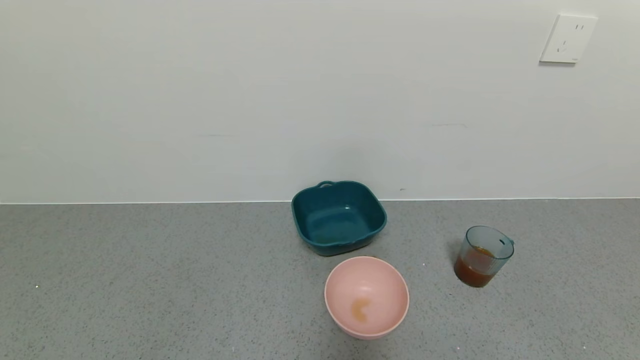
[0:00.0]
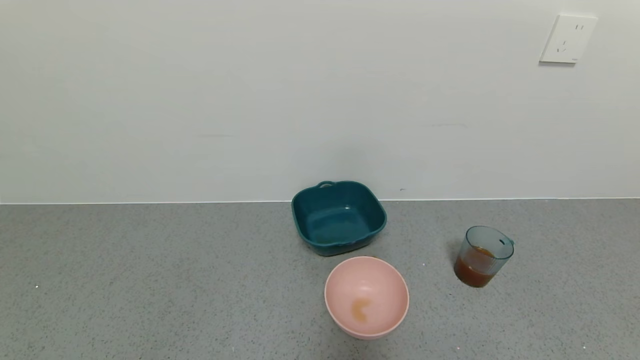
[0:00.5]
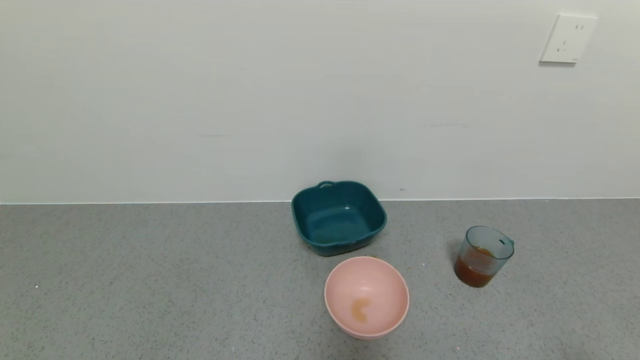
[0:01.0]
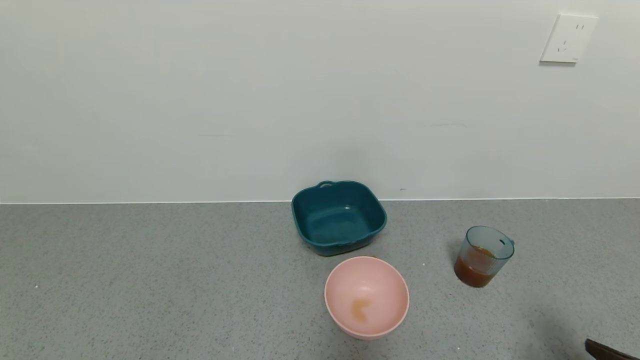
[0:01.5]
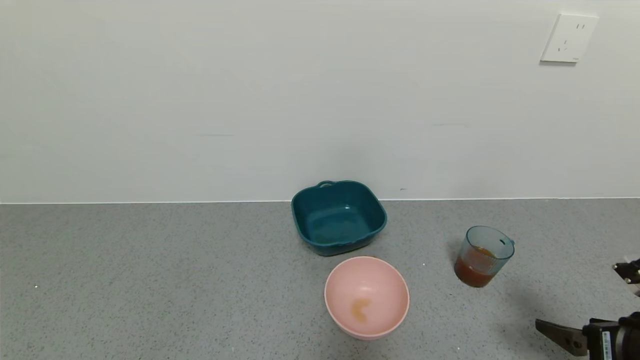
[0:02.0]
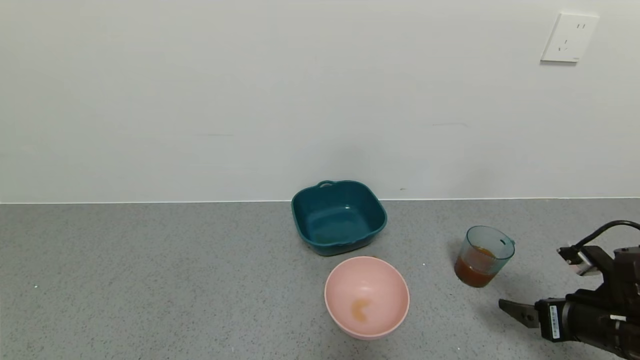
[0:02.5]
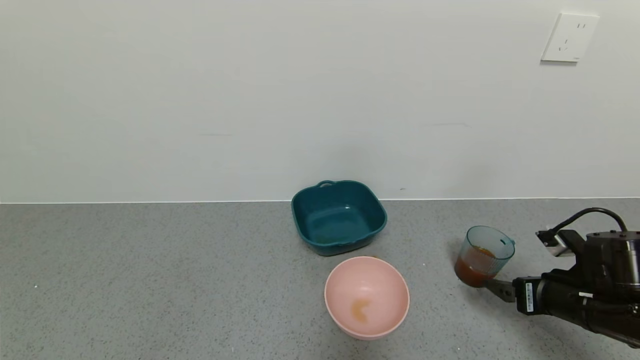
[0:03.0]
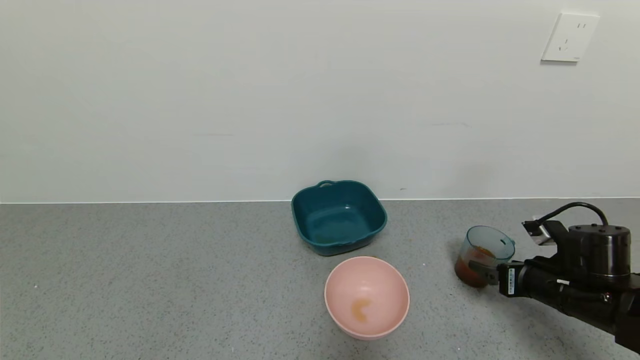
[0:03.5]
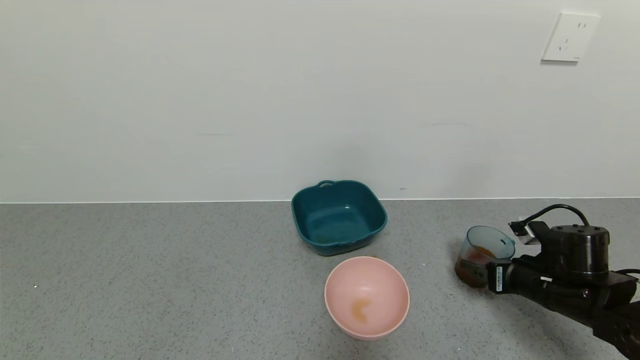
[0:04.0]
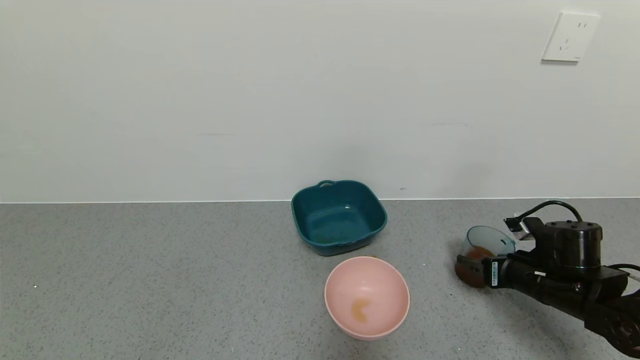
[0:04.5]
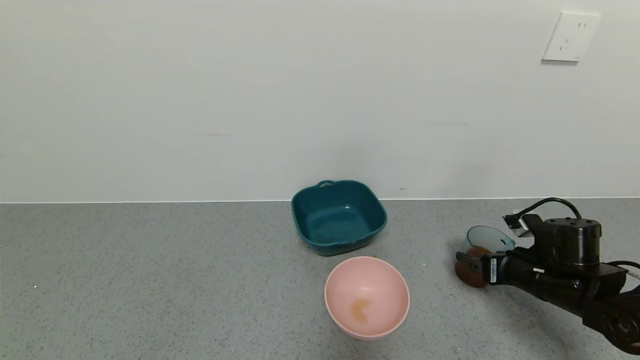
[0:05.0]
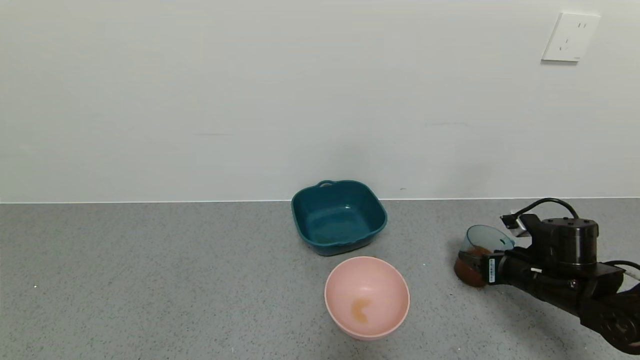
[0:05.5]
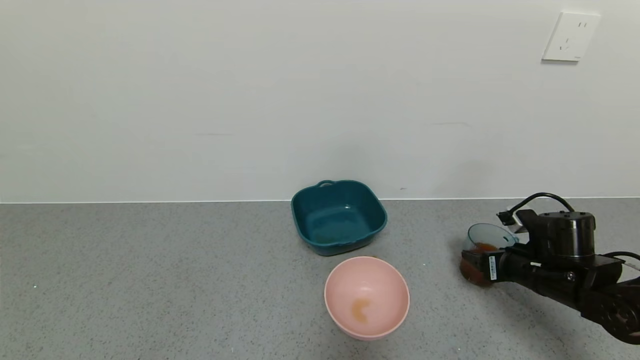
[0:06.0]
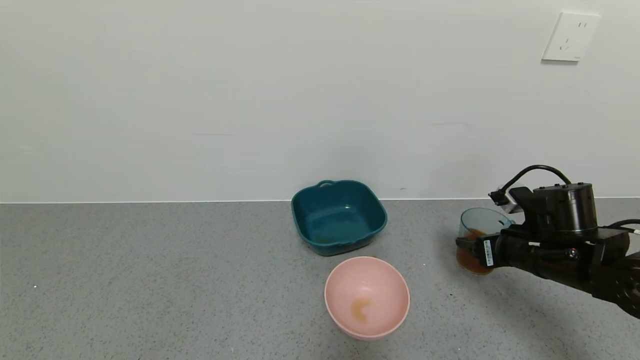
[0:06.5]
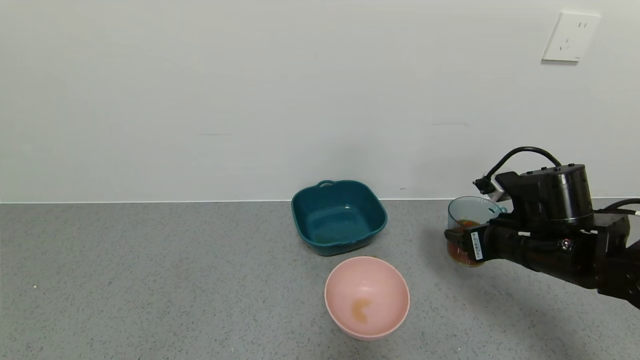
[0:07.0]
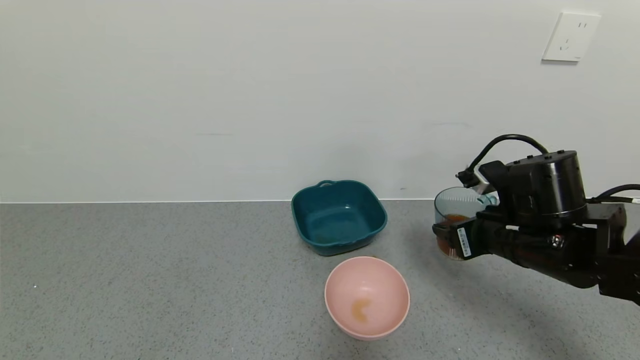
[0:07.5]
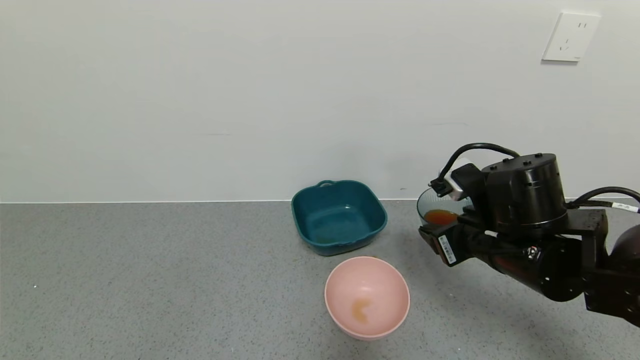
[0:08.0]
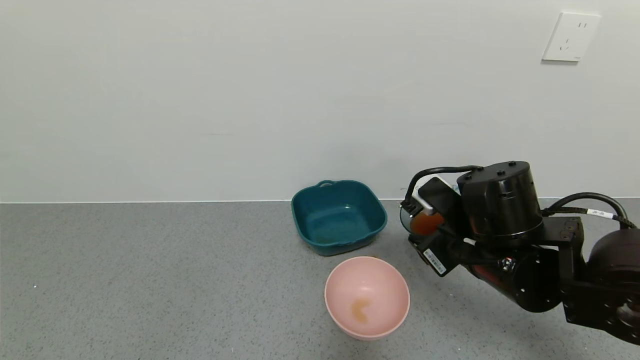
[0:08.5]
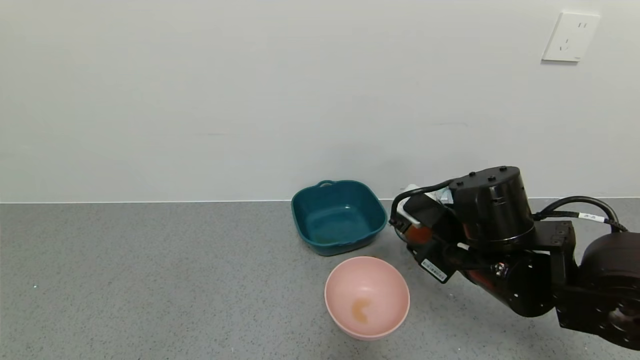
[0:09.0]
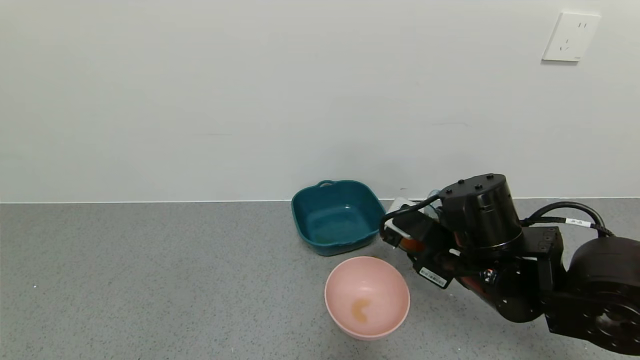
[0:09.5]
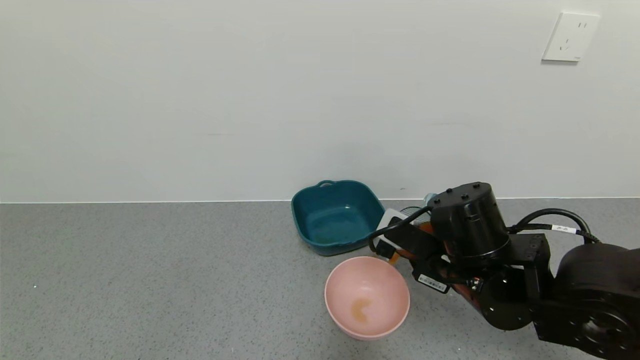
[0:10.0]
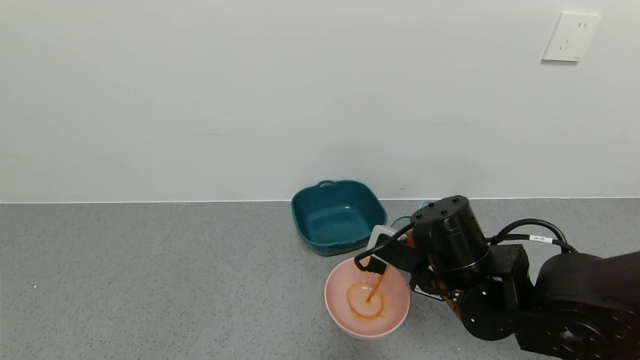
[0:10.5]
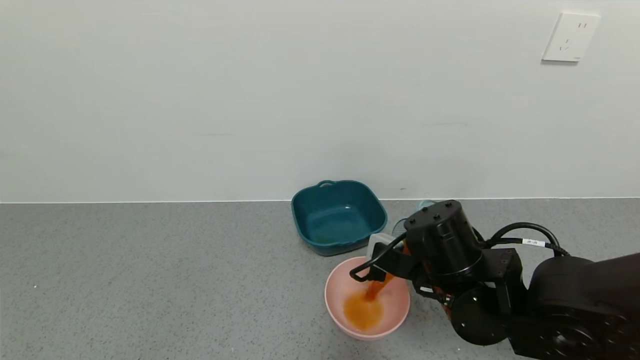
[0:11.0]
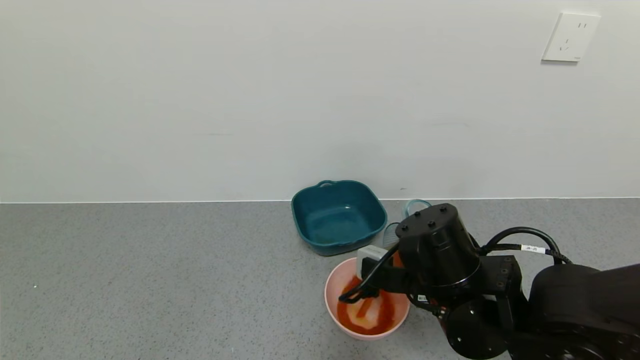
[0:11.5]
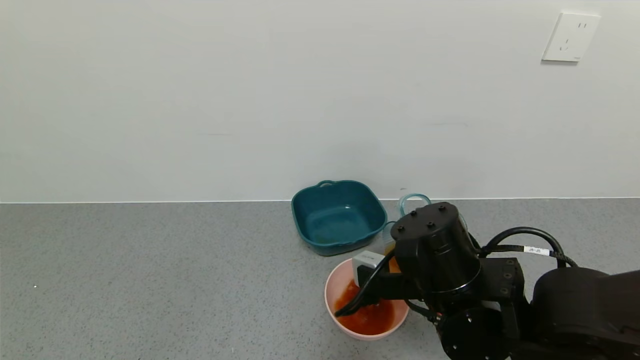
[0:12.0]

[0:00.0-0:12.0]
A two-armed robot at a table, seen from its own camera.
Task of the whole recording: use a gripper to pick up the cup and pour the liquid into a bowl or tray.
Step, 0:00.0 to 0:08.0: Pick up blue cup filled with tea with right gripper.
0:00.0 to 0:02.0: The right gripper goes approximately 15 cm forward.
0:02.0 to 0:04.0: The right gripper is displaced forward and downward by some 15 cm.
0:04.0 to 0:06.0: The right gripper closes.
0:06.0 to 0:08.0: The right gripper travels to the left and upward by about 15 cm.

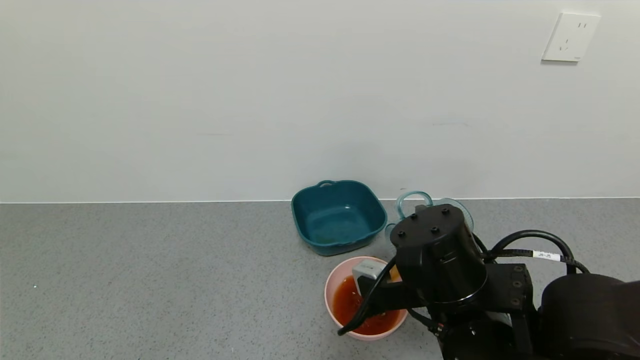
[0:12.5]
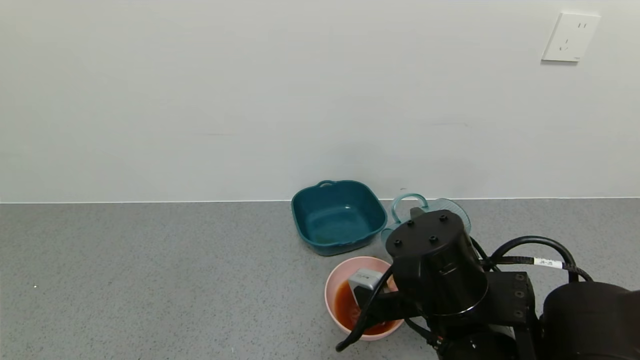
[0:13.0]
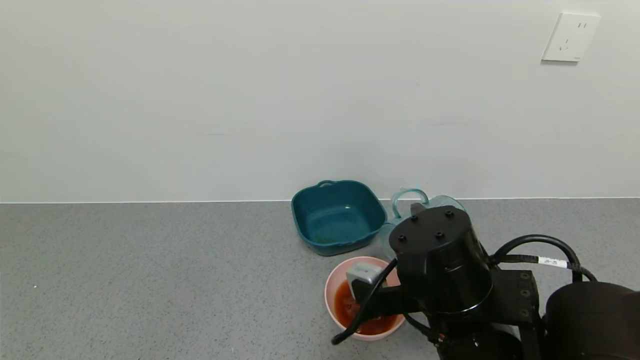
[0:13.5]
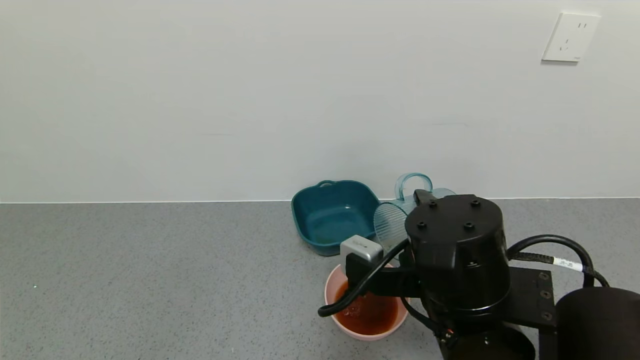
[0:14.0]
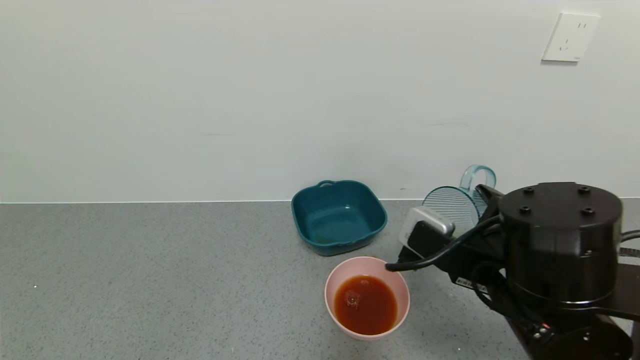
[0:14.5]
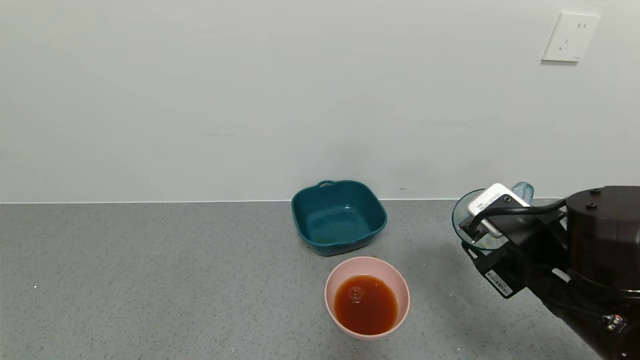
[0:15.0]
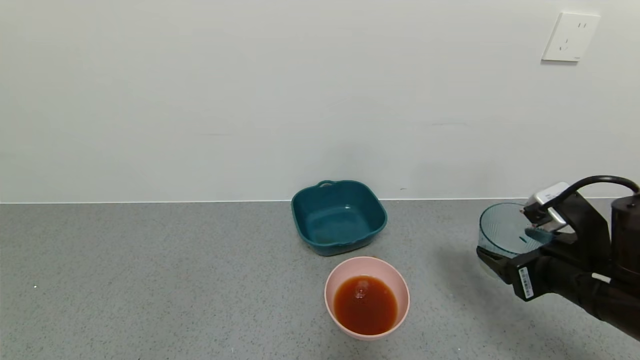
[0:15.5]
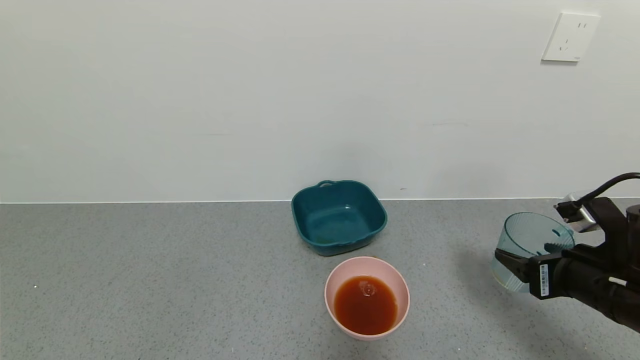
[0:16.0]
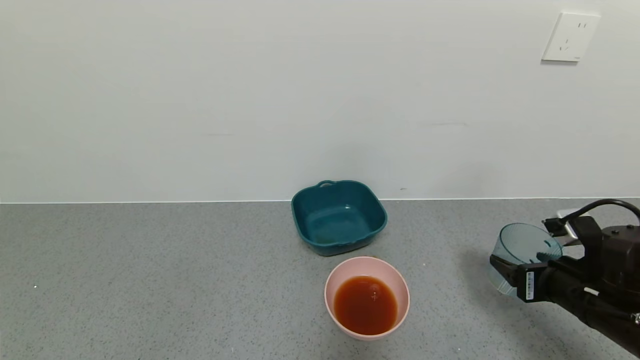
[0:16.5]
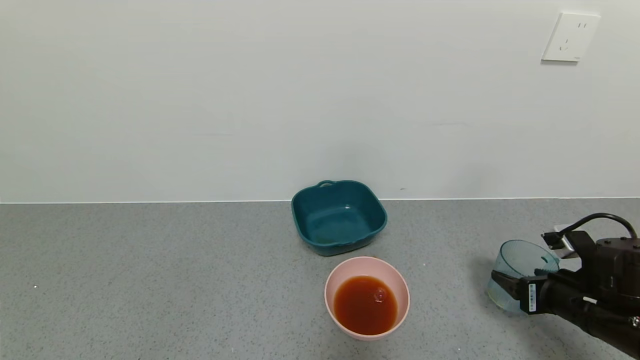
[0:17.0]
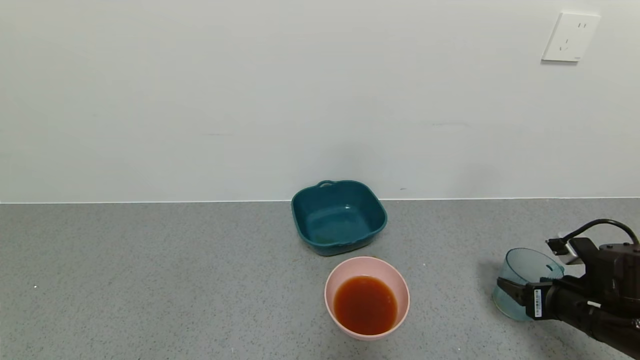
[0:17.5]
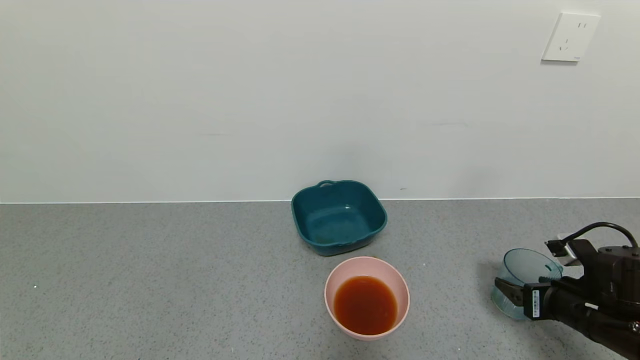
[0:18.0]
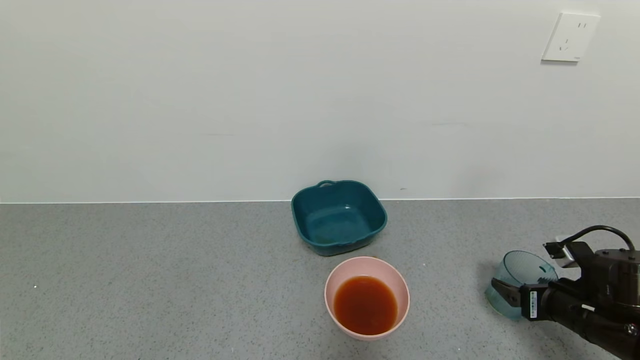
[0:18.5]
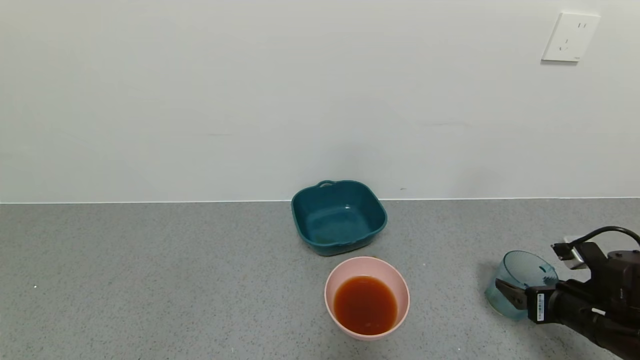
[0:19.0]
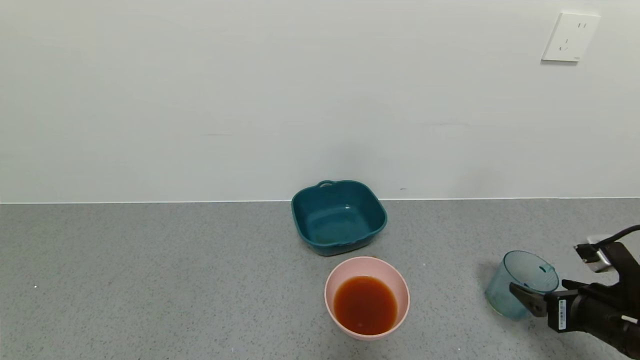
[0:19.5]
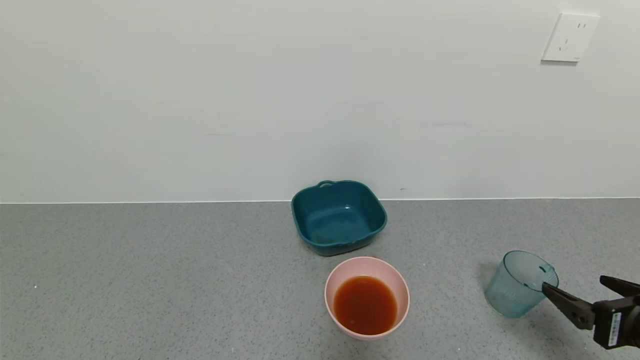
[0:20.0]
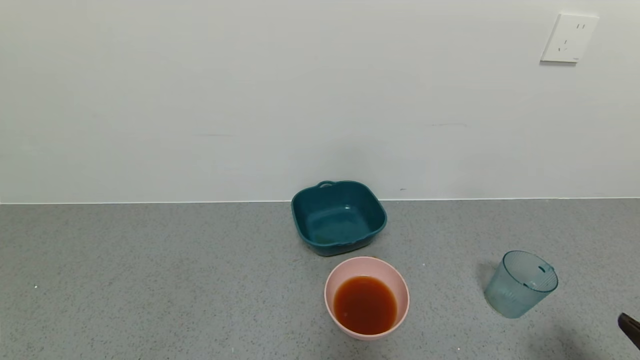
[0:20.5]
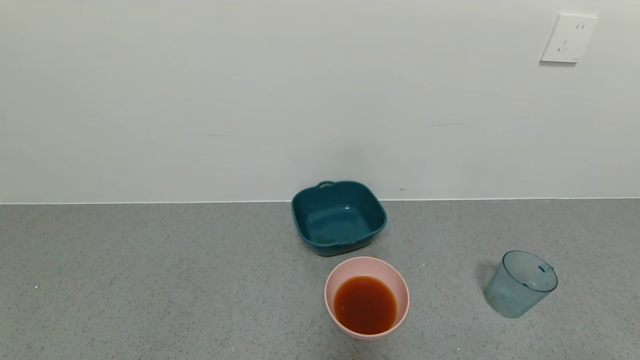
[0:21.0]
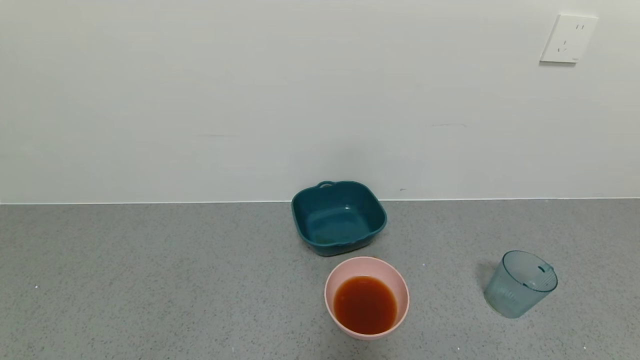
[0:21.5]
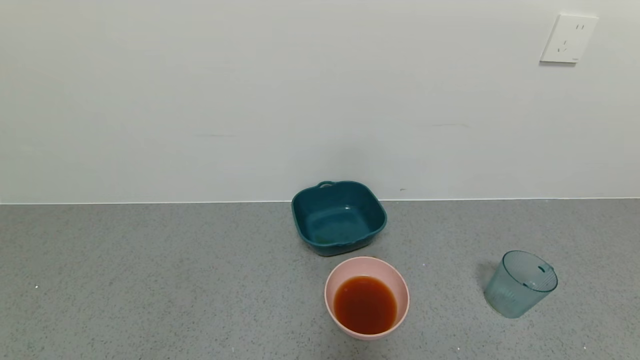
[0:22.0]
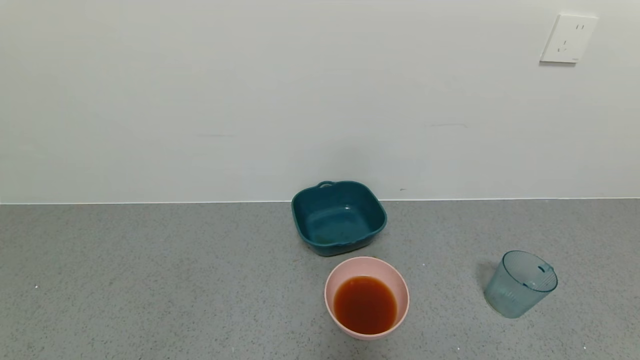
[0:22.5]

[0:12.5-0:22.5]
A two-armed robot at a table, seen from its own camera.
Task of the whole recording: use a gripper to pick up the cup and pour the liquid into a bowl or tray.
Step, 0:12.5 to 0:14.5: Pour the tea into the pink bowl with right gripper.
Step, 0:15.0 to 0:19.0: Place blue cup with tea on the table with right gripper.
0:12.5 to 0:14.5: The right gripper shifts by some 5 cm.
0:14.5 to 0:16.5: The right gripper travels to the right and downward by some 15 cm.
0:16.5 to 0:18.5: The right gripper shifts by some 5 cm, and opens.
0:18.5 to 0:20.5: The right gripper moves backward and upward, some 20 cm.
0:20.5 to 0:22.5: The right gripper goes approximately 10 cm backward and downward.
